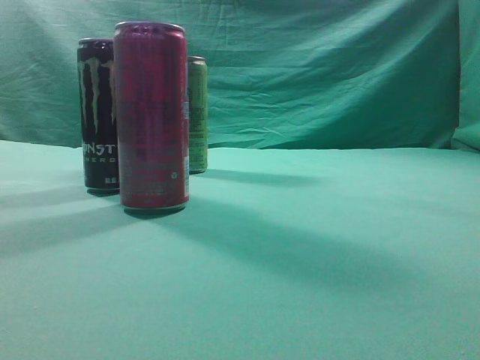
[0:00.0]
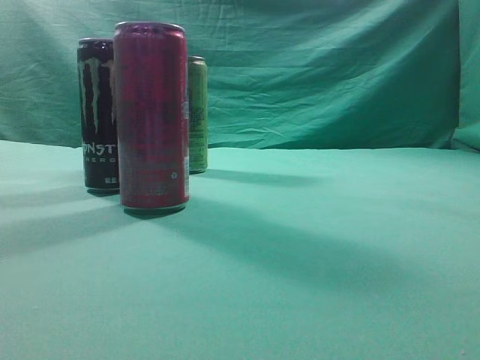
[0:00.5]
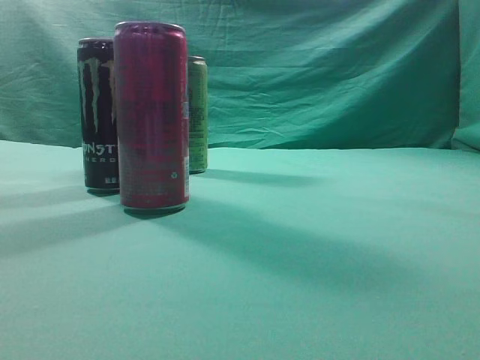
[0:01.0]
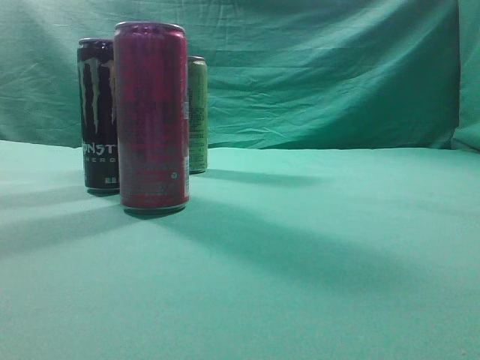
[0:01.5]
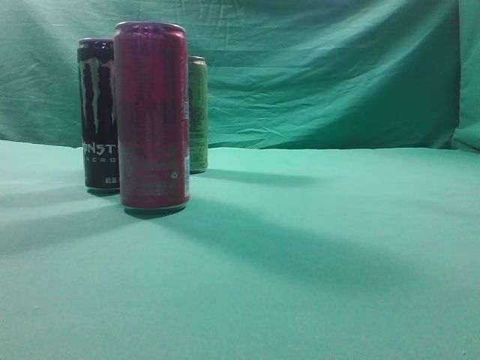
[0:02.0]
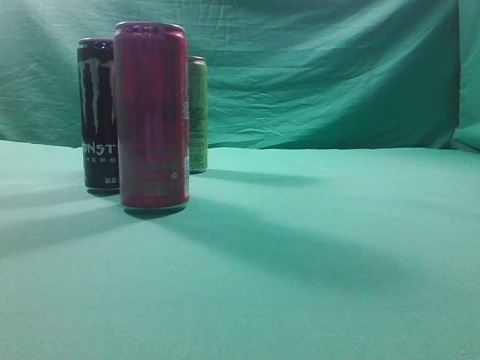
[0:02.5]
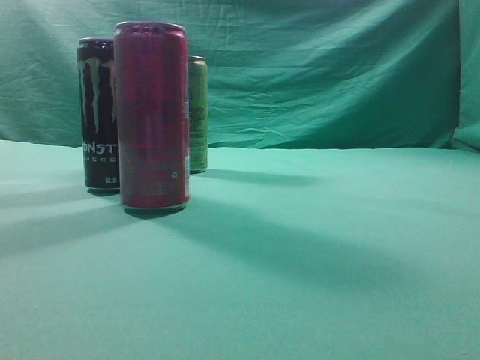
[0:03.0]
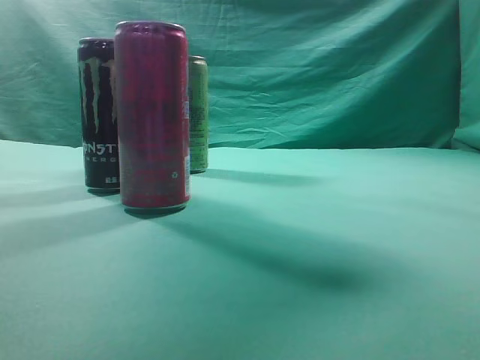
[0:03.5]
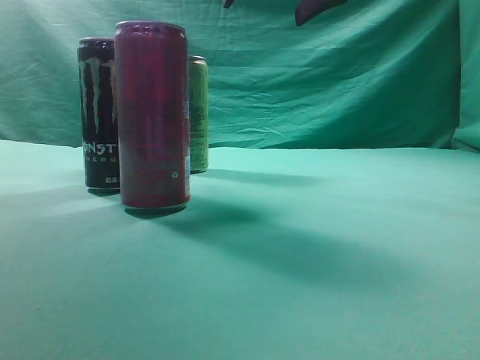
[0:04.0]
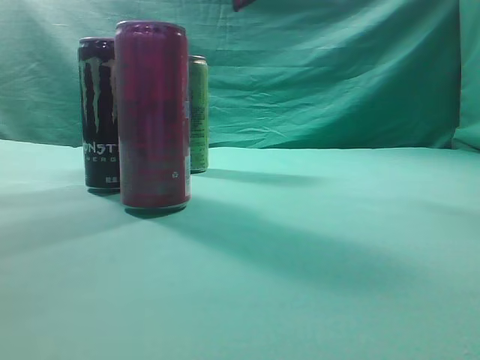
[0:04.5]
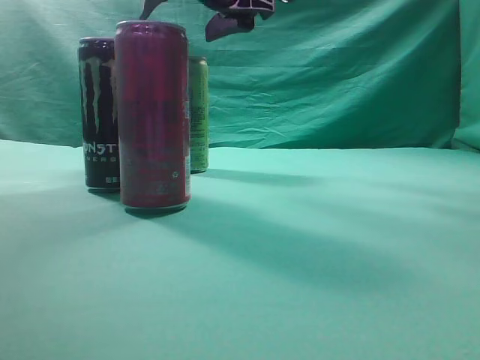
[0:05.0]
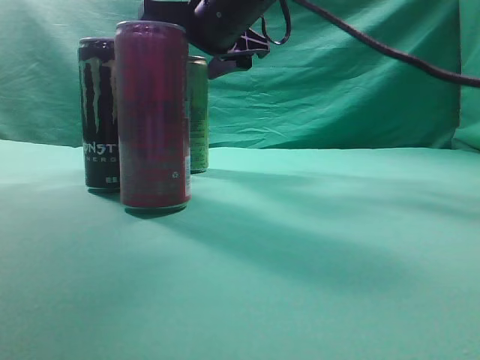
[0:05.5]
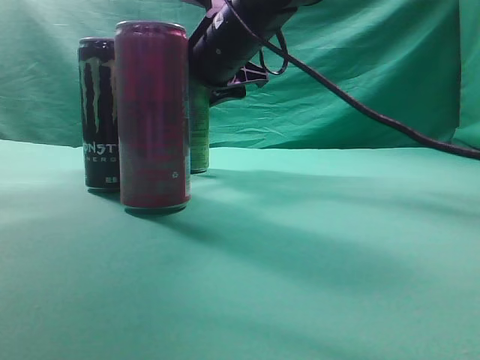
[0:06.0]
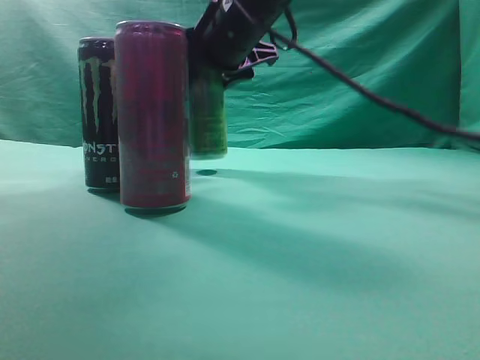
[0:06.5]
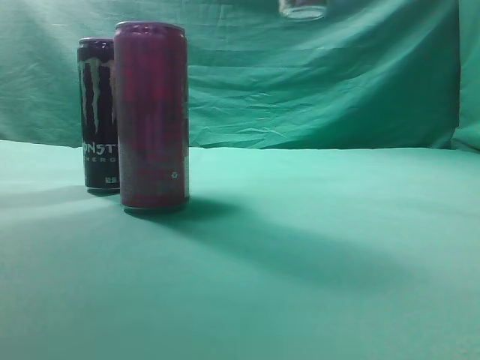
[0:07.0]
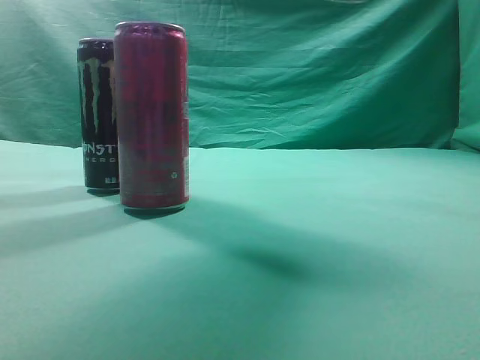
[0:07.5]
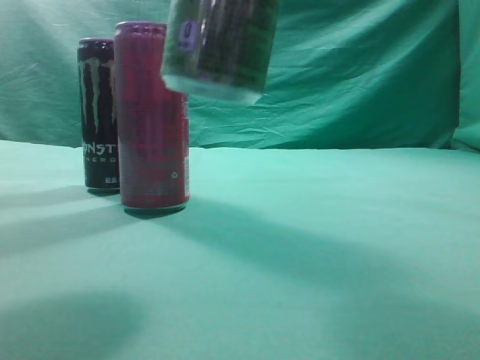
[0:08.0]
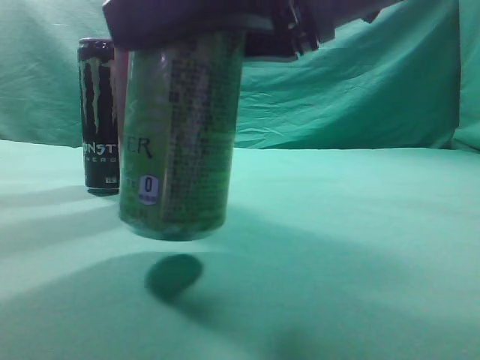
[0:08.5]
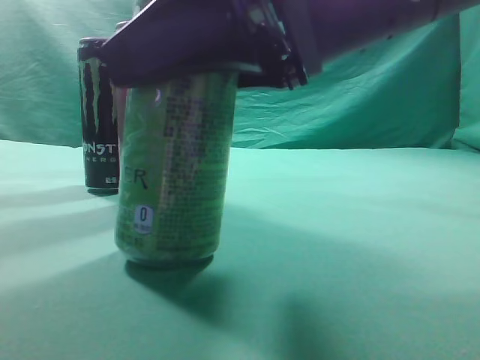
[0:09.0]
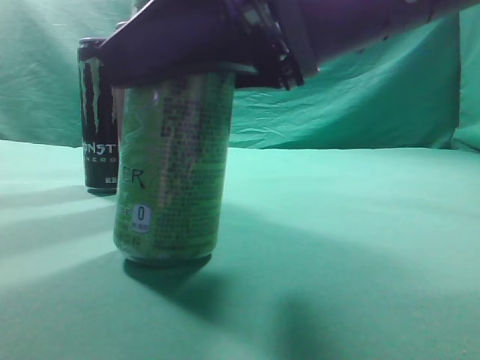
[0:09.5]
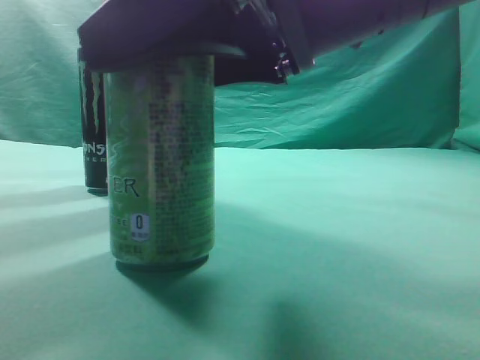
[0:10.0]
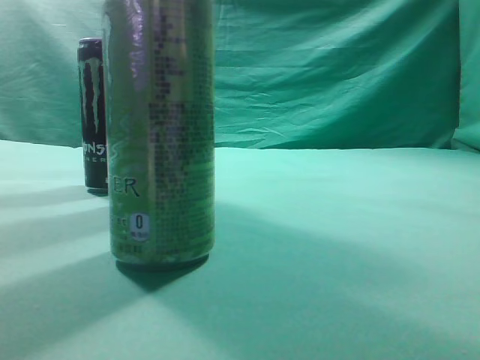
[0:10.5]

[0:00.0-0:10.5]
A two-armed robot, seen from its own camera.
Task of the whole recording: move one drink among three beverages.
Step, 0:00.0 to 0:06.5: Grasp the beverage bottle placed at the back of the desk.
Step, 0:07.0 to 0:10.0: Place the beverage bottle to the front of the table.
0:02.0 to 0:04.0: The right gripper goes roughly 40 cm forward and to the left, and opens.
0:04.0 to 0:06.5: The right gripper goes some 10 cm to the left and downward, and closes up.
0:06.5 to 0:08.5: The right gripper shifts about 25 cm backward.
0:08.5 to 0:10.5: The right gripper is displaced upward by approximately 5 cm.
